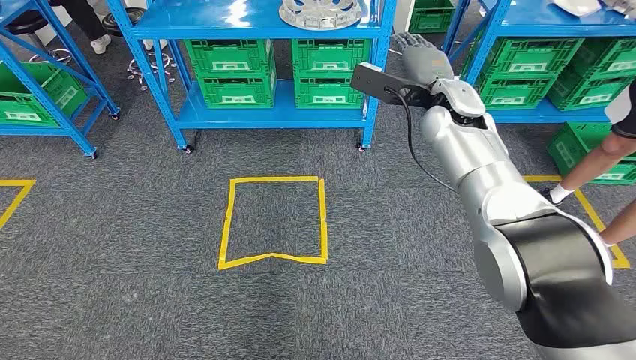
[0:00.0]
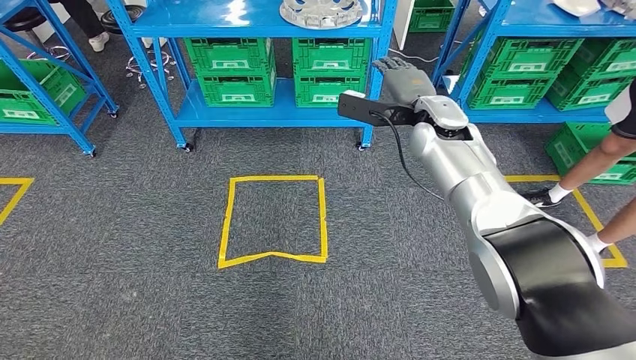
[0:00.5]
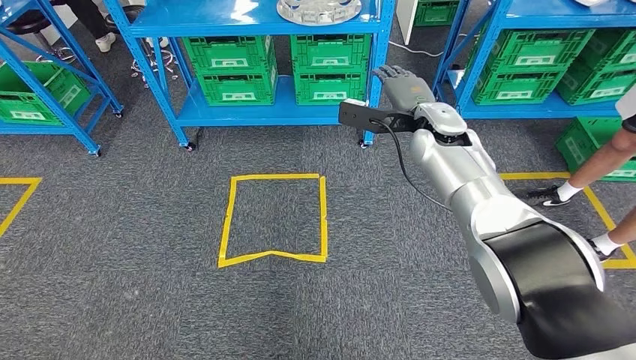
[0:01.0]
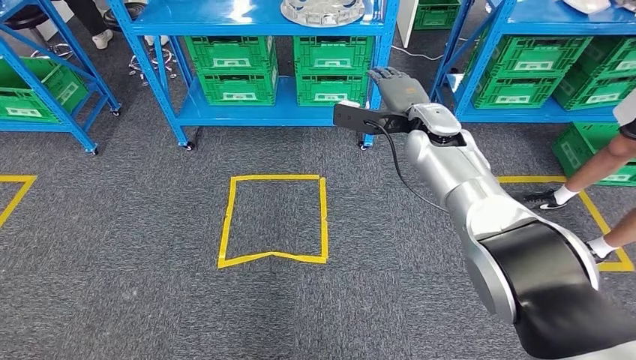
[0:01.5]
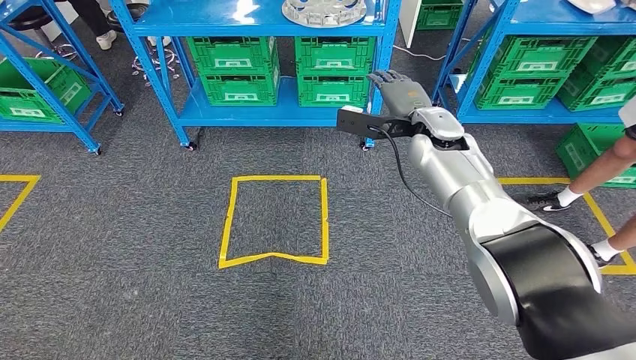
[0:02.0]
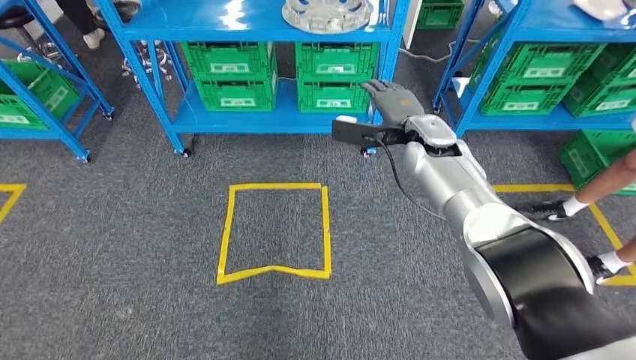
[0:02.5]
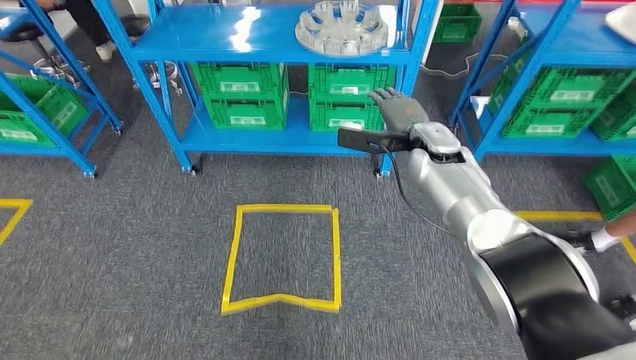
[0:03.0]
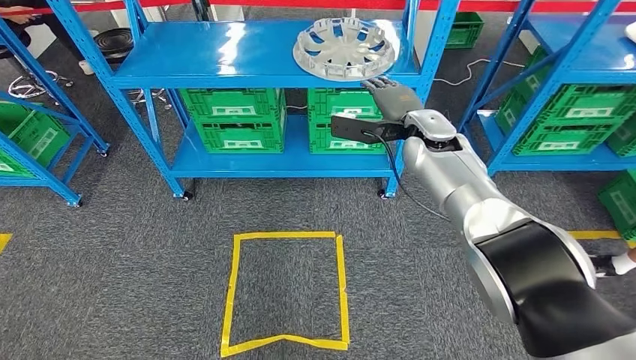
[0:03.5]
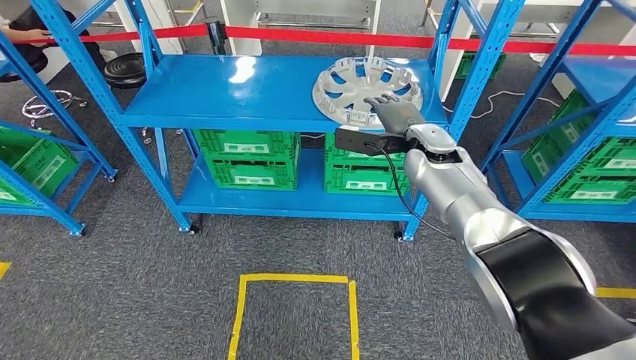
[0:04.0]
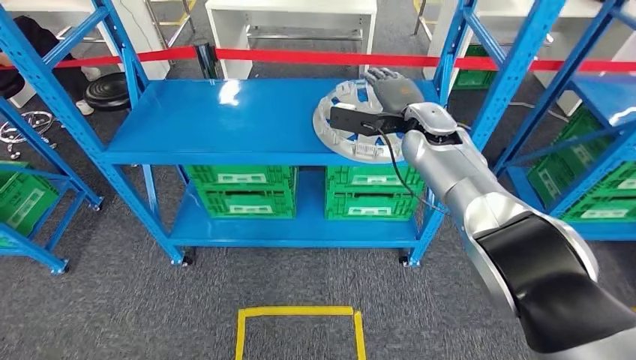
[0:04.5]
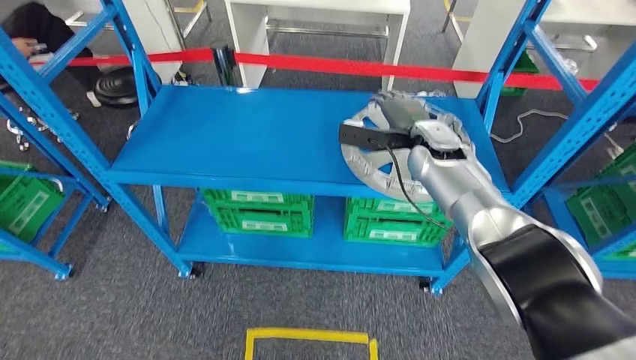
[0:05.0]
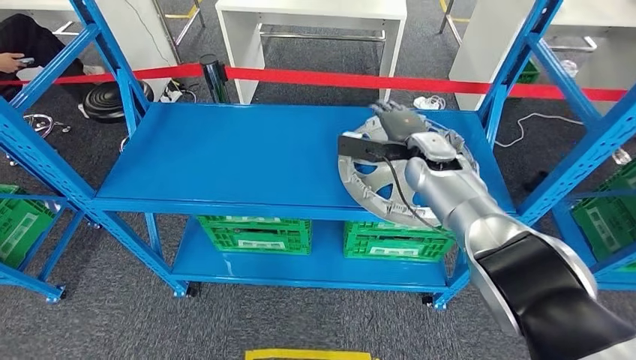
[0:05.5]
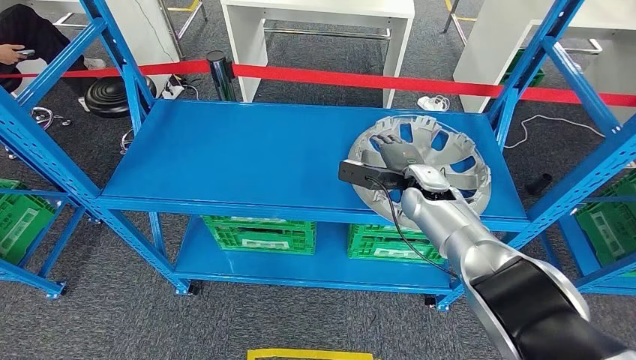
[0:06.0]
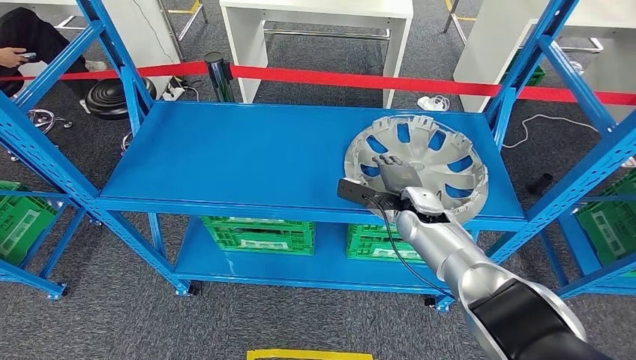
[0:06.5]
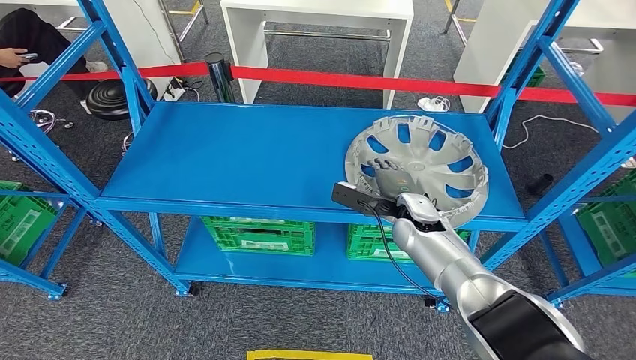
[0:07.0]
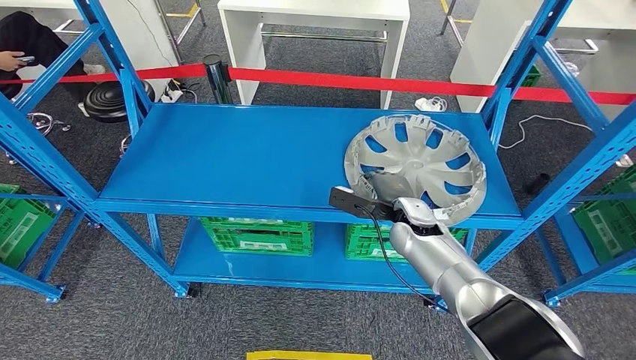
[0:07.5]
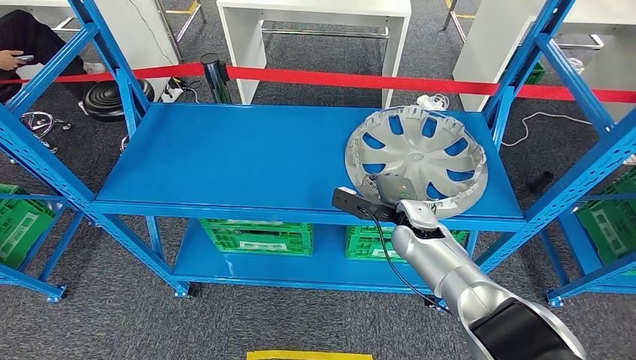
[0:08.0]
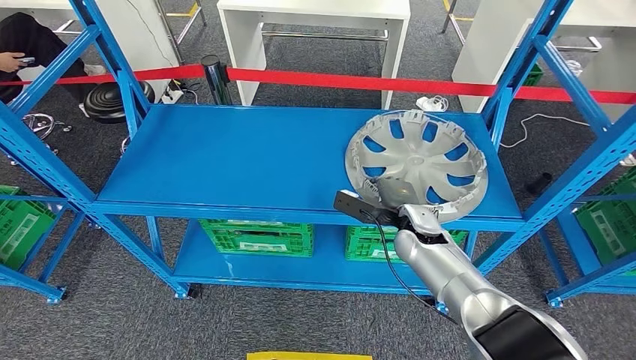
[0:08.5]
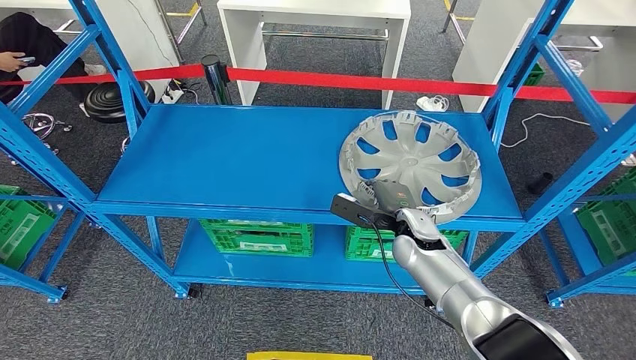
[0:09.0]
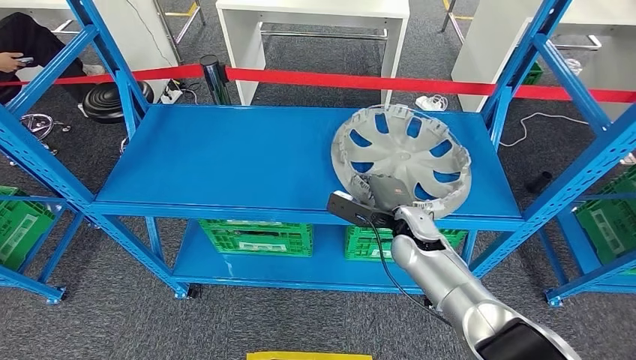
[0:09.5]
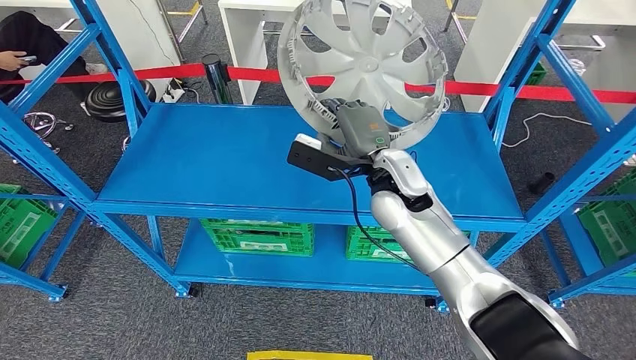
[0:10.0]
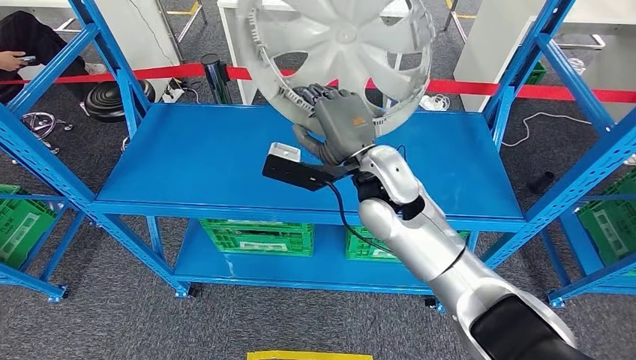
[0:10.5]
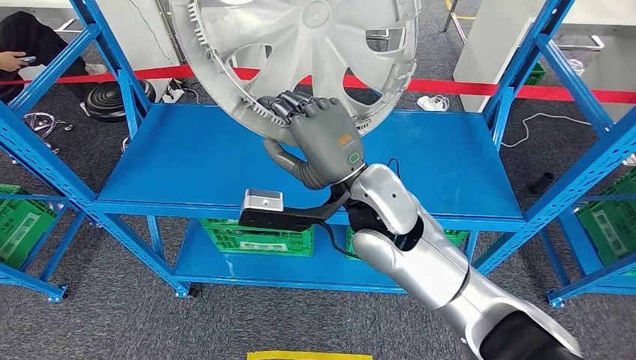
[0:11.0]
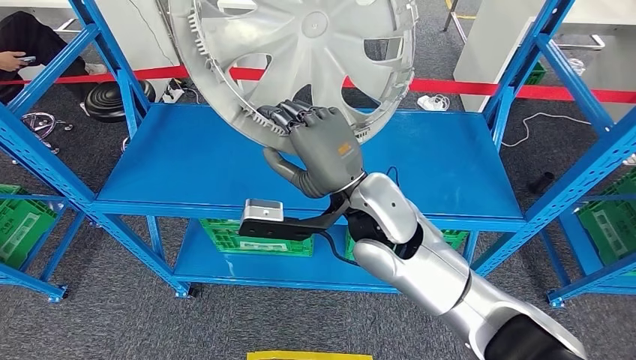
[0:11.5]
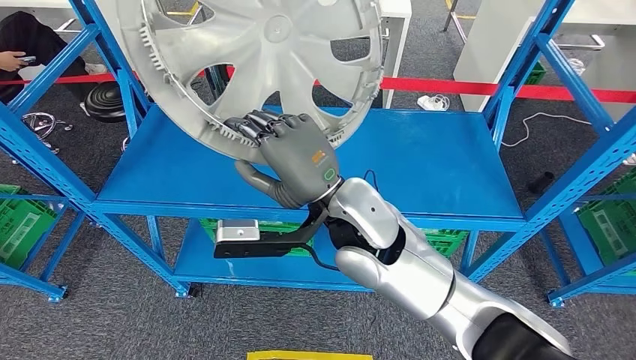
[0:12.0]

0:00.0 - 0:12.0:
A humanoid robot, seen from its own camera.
Step, 0:00.0 - 0:10.5: Pick up the small component from the shelf.
0:08.0 - 0:10.0: The right hand heads upward and to the left, covering roughly 15 cm.

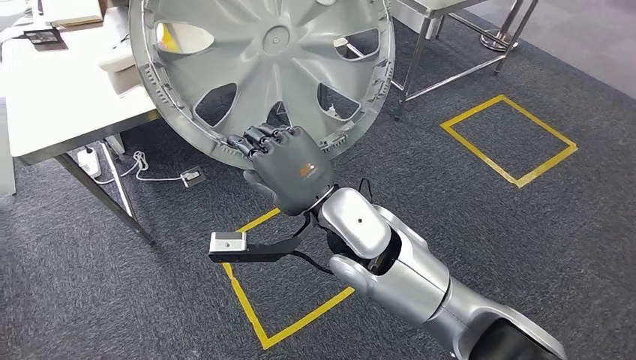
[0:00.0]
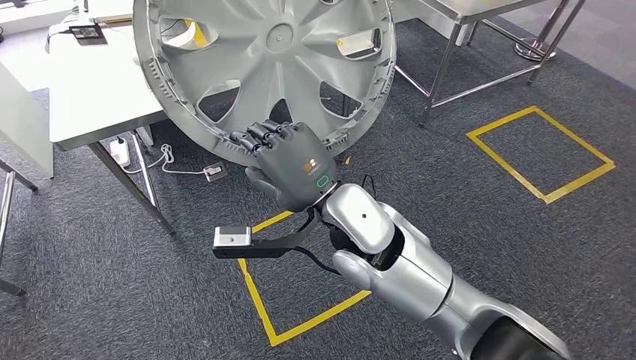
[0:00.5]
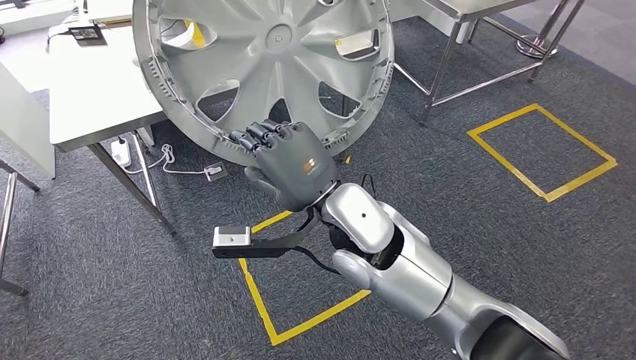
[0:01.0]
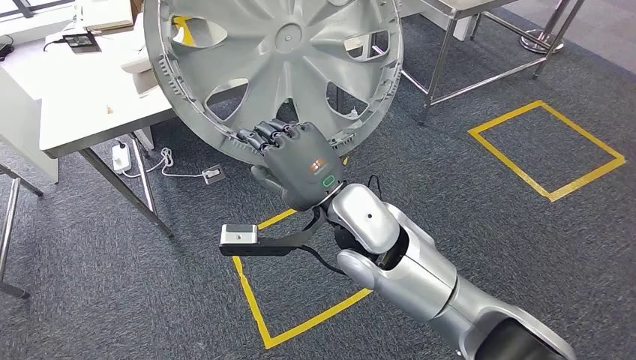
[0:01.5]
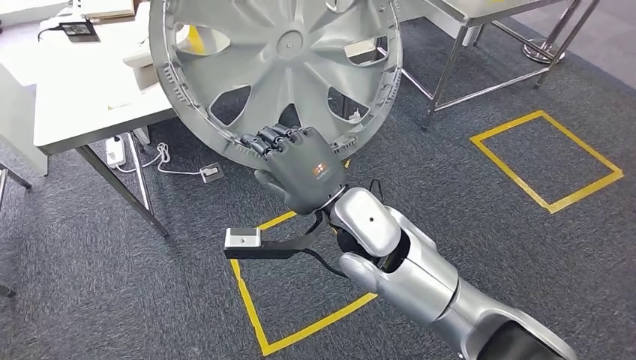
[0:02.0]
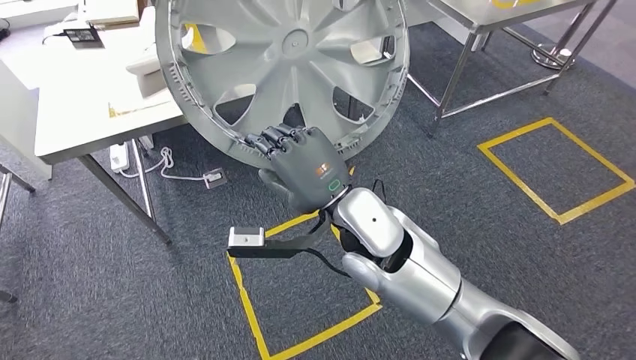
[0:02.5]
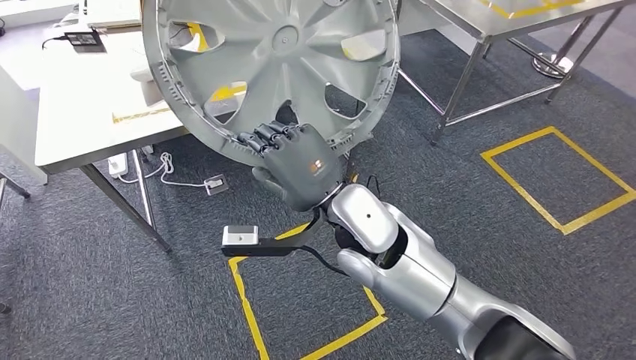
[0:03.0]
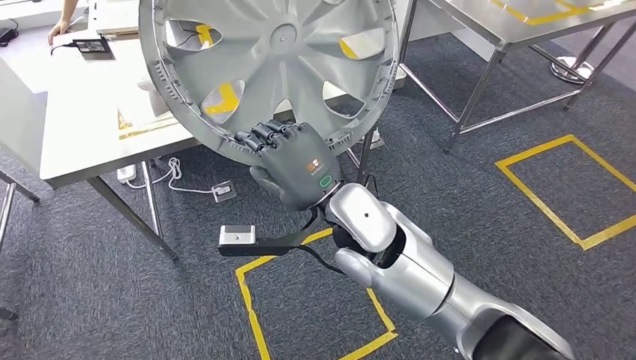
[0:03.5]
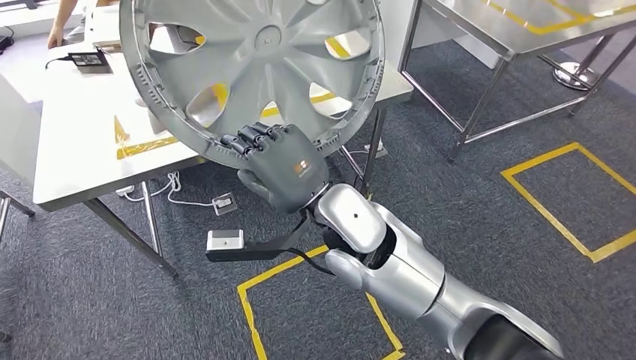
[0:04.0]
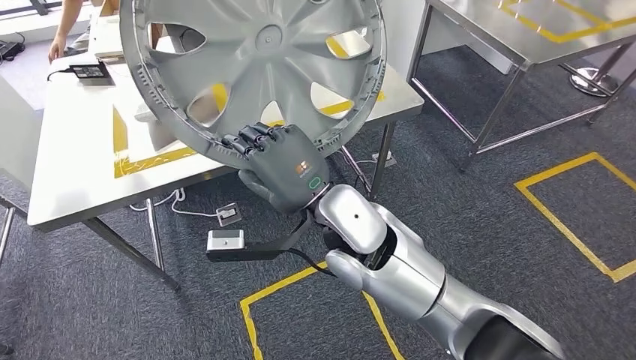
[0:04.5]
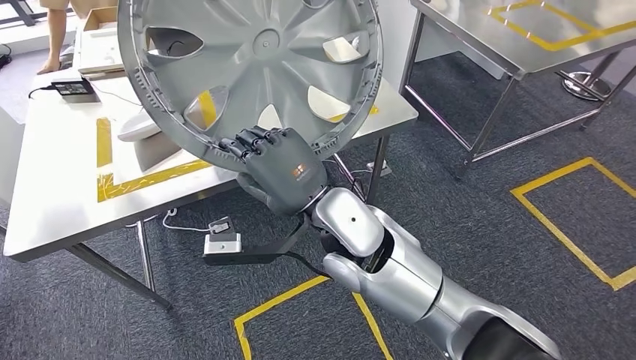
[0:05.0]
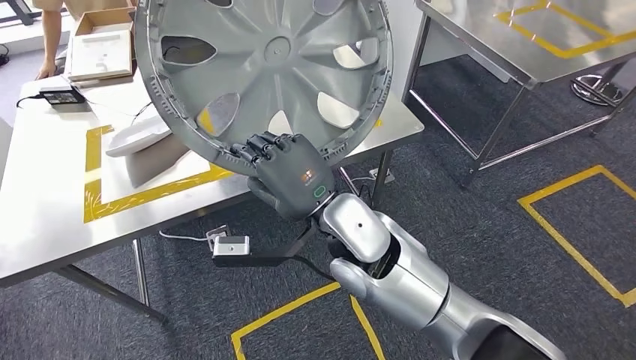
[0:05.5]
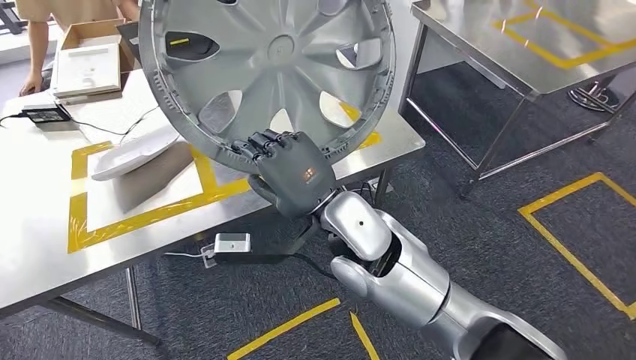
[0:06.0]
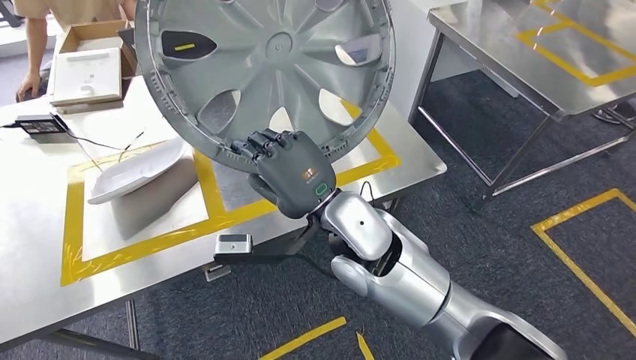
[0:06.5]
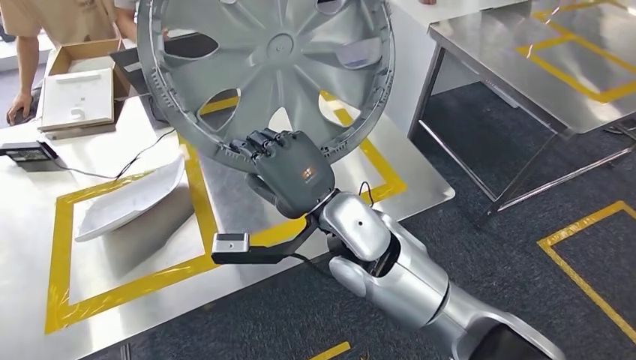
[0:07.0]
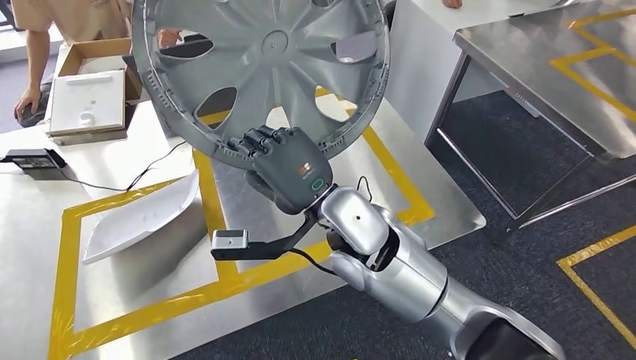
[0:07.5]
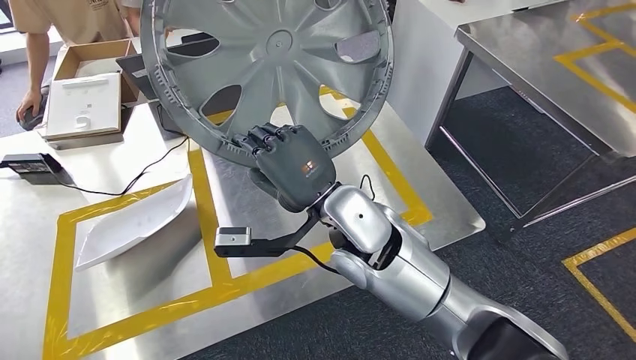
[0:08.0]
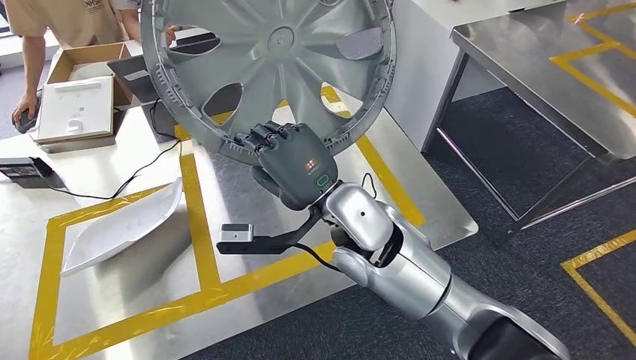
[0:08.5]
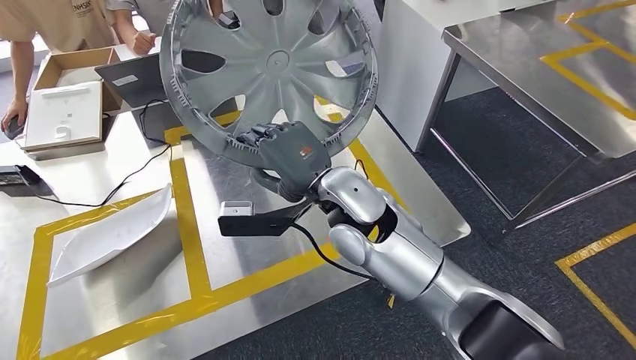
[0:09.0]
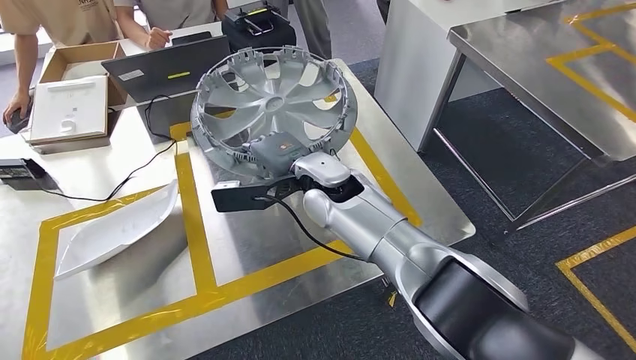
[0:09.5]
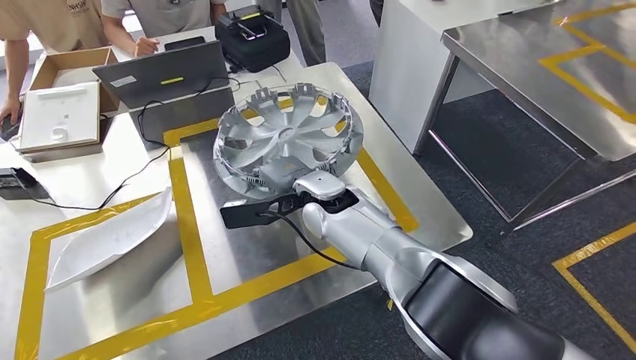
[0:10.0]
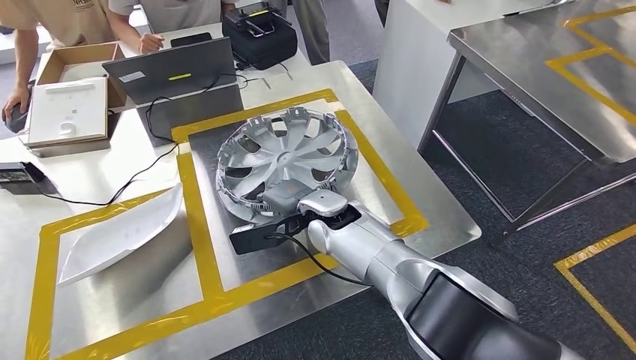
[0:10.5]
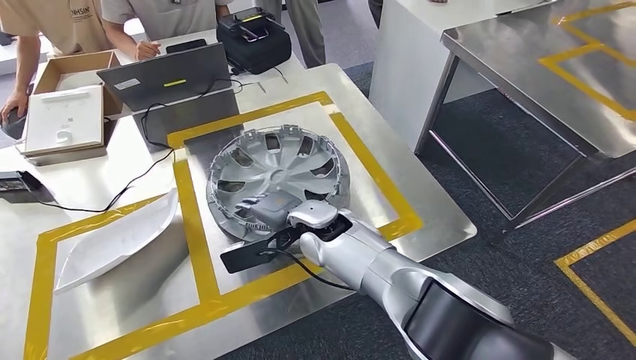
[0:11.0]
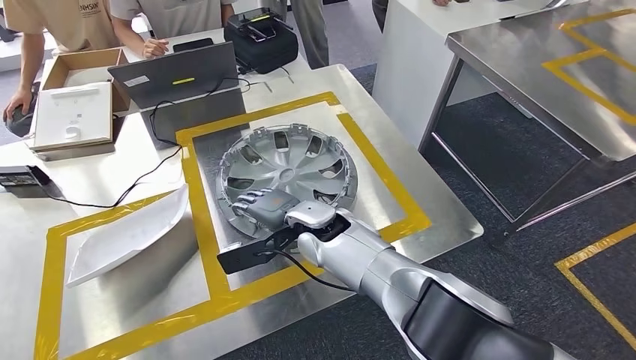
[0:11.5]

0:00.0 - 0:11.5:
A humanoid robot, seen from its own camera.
Step, 0:00.0 - 0:07.0: Move the small component to the workbench.
